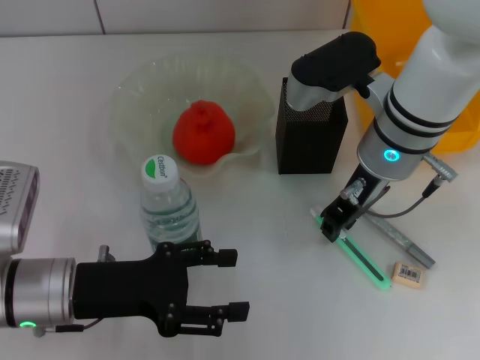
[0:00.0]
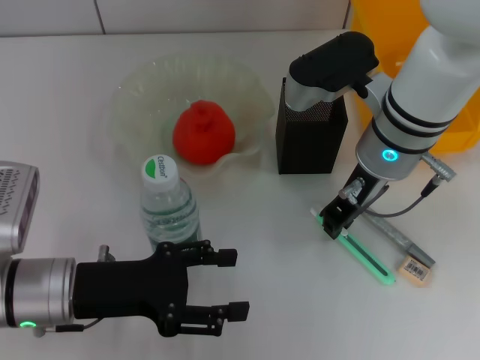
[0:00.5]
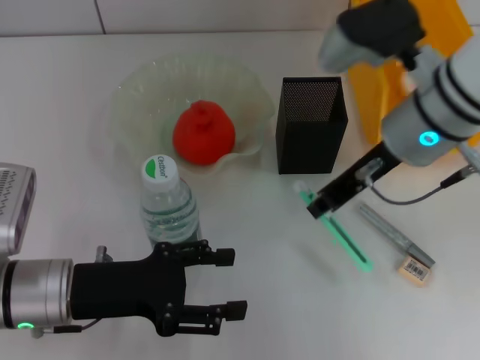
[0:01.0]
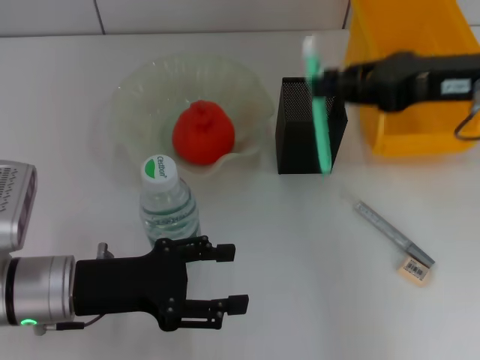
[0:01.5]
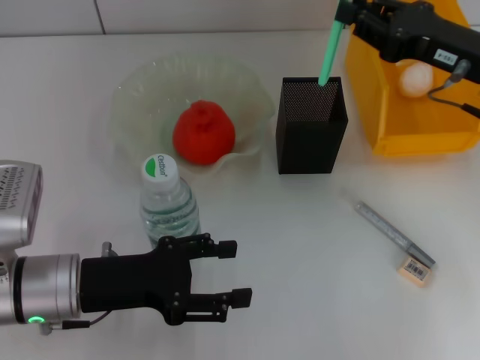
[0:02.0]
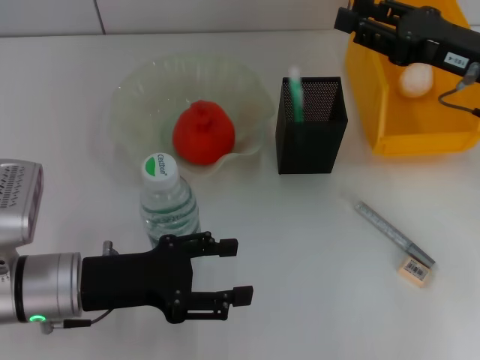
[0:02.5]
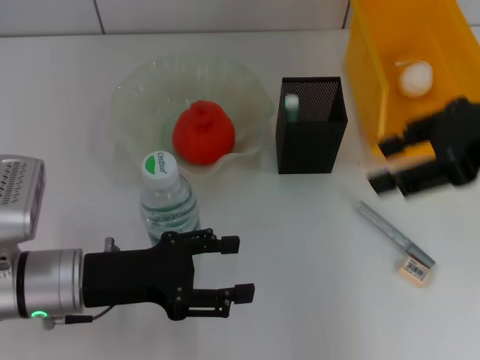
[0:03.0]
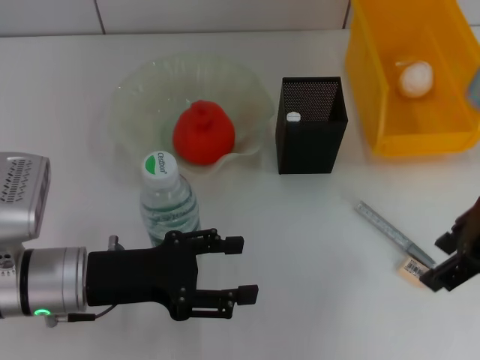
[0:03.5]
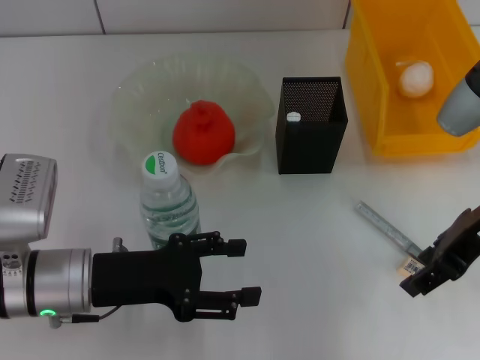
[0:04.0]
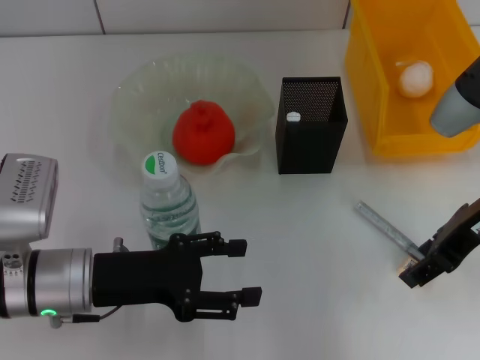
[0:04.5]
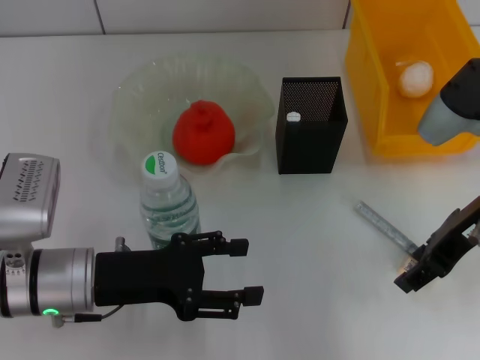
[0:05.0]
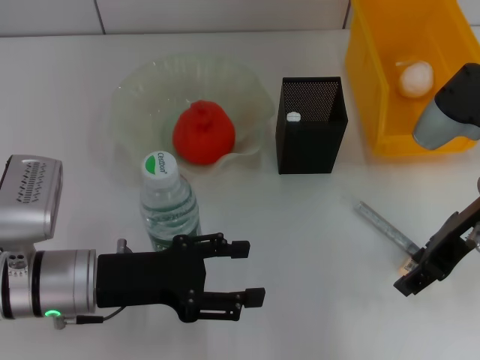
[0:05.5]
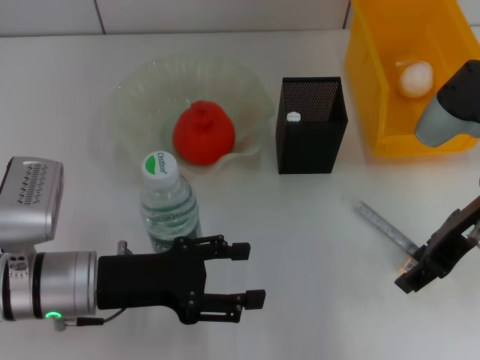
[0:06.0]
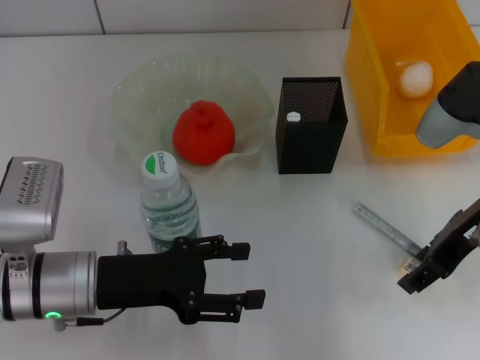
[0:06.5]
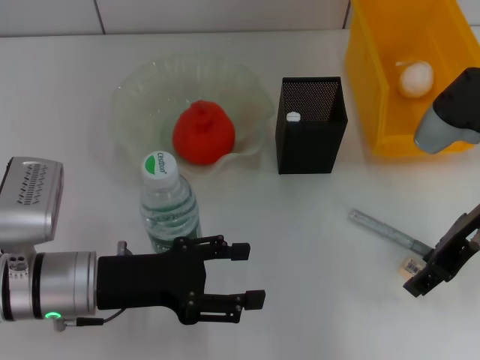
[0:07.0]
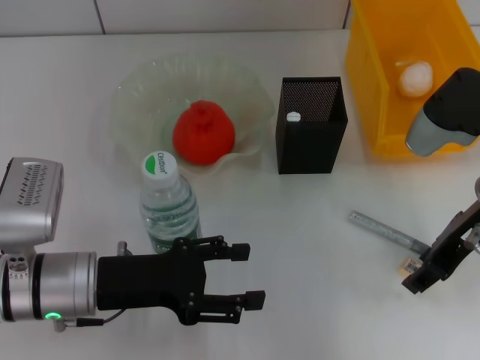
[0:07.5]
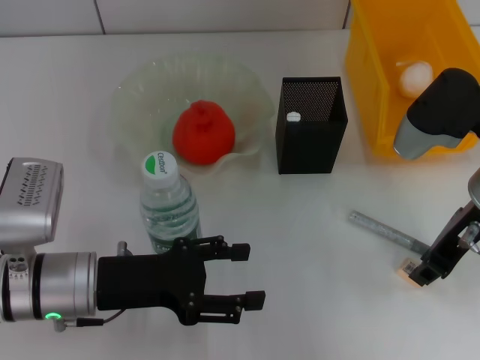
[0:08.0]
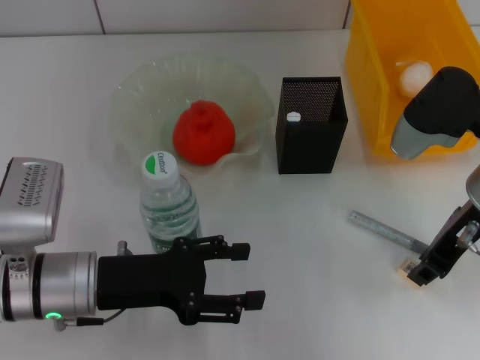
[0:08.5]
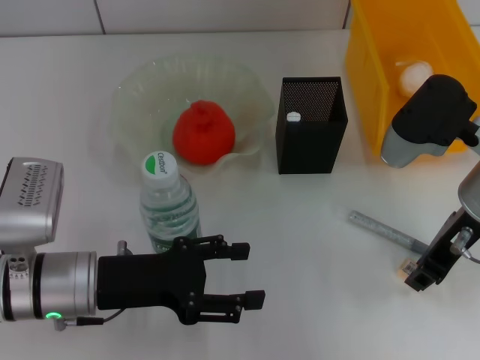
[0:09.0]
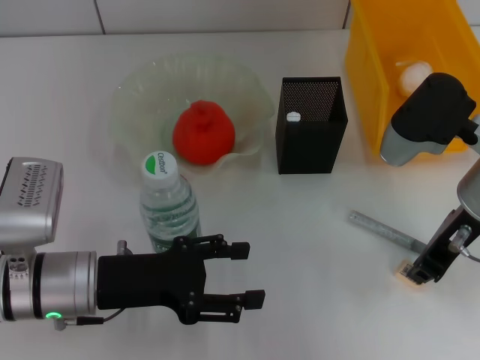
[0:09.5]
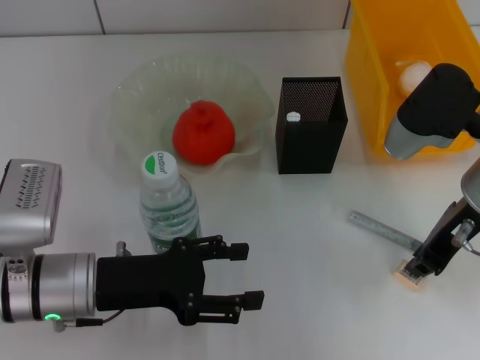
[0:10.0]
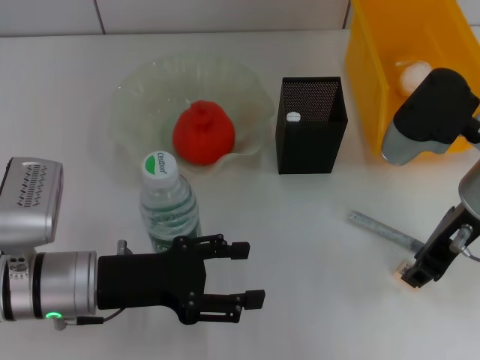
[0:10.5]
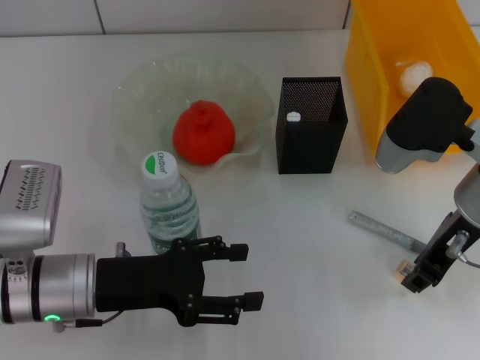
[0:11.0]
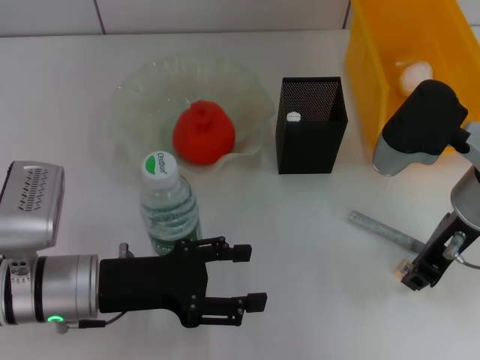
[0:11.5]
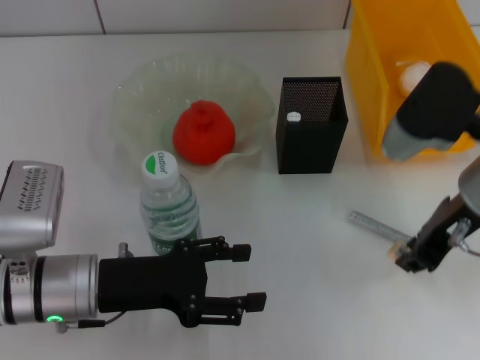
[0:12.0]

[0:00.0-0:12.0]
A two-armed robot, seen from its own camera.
Step, 0:01.0 to 0:02.5: Place the blue utility knife into the pen holder with the right hand.
Step, 0:03.0 to 0:11.5: Grab the eraser with the right hand.
0:00.0 to 0:02.0: The right gripper is displaced to the right by roughly 15 cm.
0:02.0 to 0:04.0: The right gripper moves backward, some 5 cm, moves roughly 10 cm upward and comes back, and opens its fingers.
0:04.0 to 0:06.0: The grippers make only small movements.
0:06.0 to 0:08.0: The right gripper closes up.
0:08.0 to 0:10.0: The right gripper closes.
0:10.0 to 0:12.0: The grippers stay close to where they were, moving slightly.

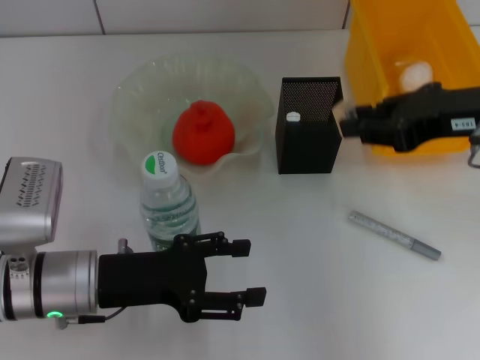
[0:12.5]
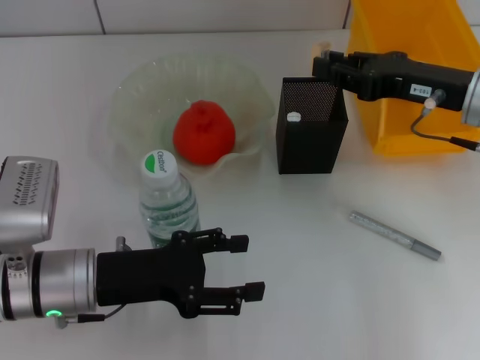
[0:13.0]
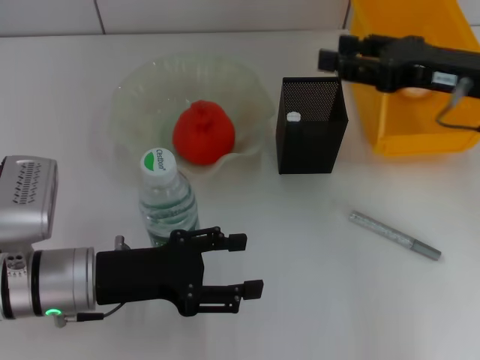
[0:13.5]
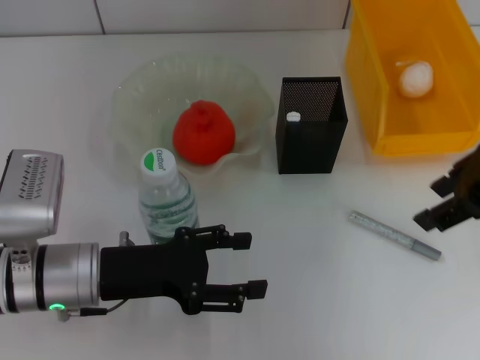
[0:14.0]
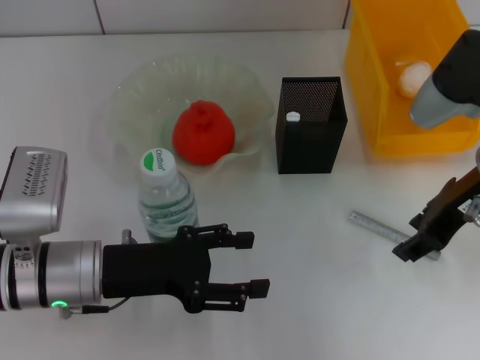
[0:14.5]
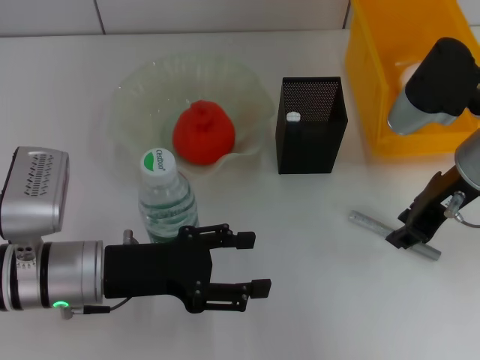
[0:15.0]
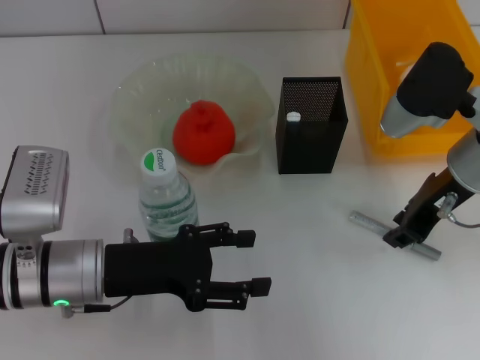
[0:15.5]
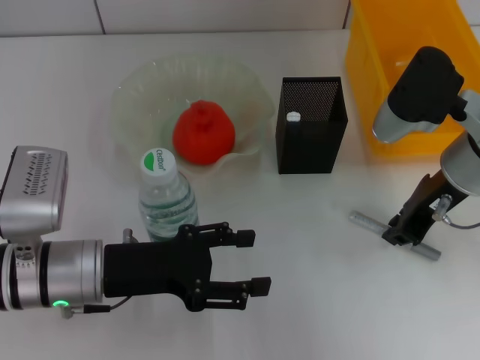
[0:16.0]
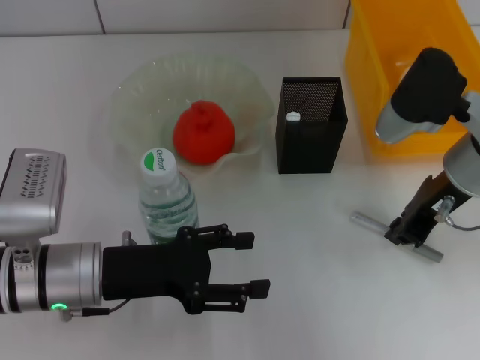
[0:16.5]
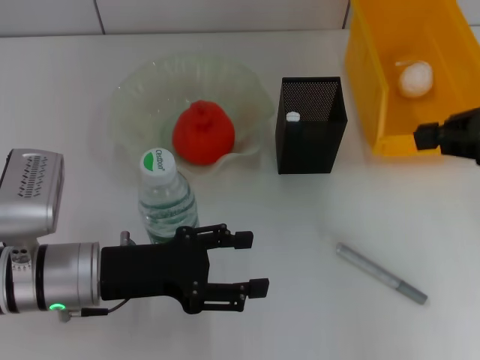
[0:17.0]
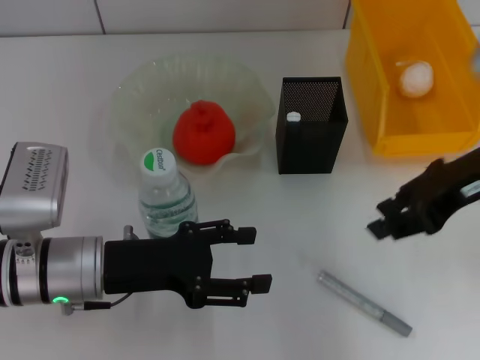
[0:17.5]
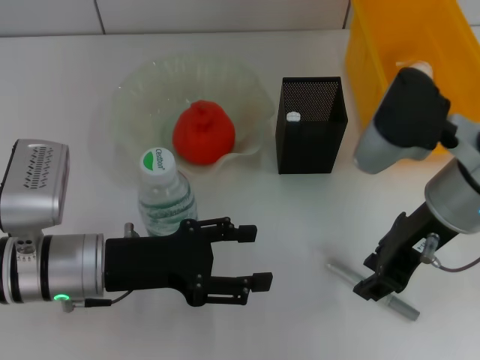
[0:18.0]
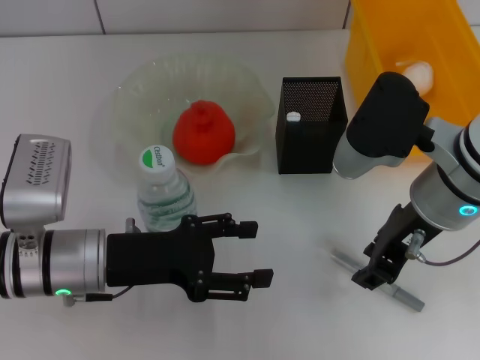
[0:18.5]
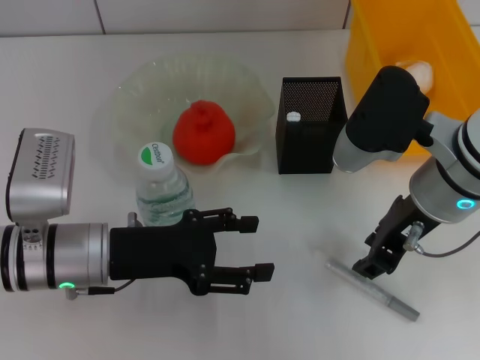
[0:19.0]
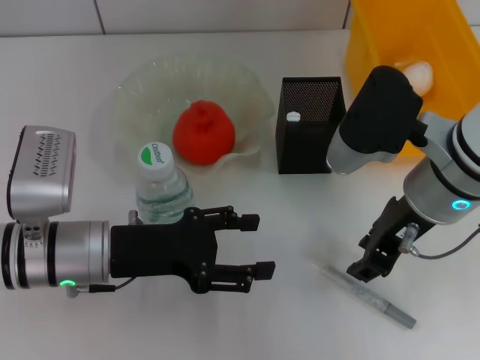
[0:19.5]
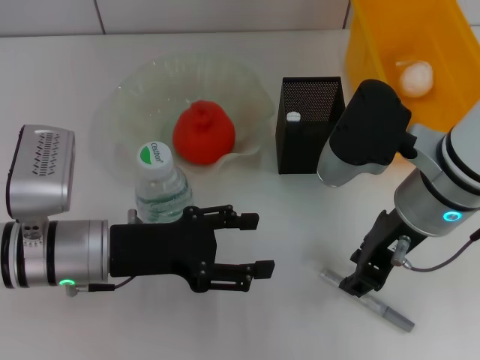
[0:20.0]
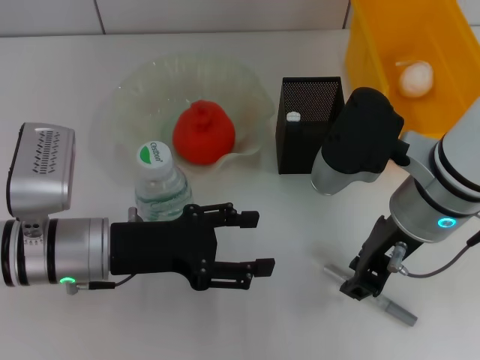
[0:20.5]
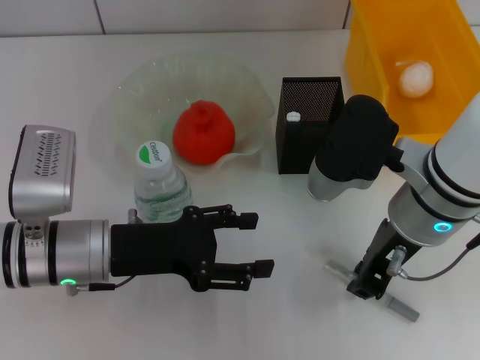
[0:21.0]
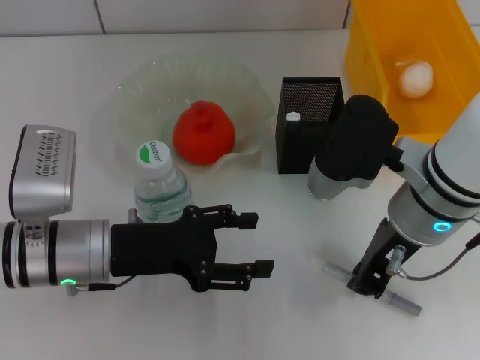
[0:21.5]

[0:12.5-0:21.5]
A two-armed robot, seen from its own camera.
0:12.5 to 0:14.5: The right gripper swings up and down, roughly 10 cm each way, with 2 reversals, and opens up.
0:14.5 to 0:17.0: The right gripper moves to the right, about 10 cm, and closes its fingers.
0:17.0 to 0:19.5: The right gripper goes about 15 cm to the left, and opens.
0:19.5 to 0:21.5: The grippers stay close to where they were, moving slightly.

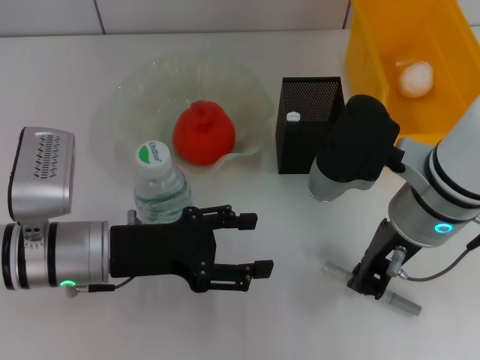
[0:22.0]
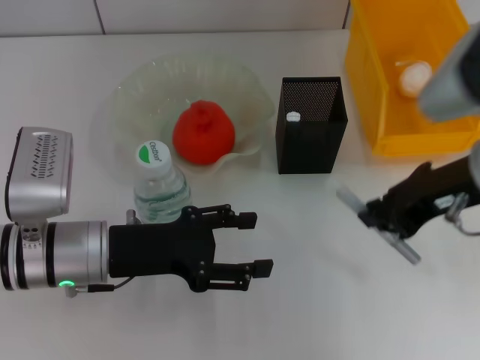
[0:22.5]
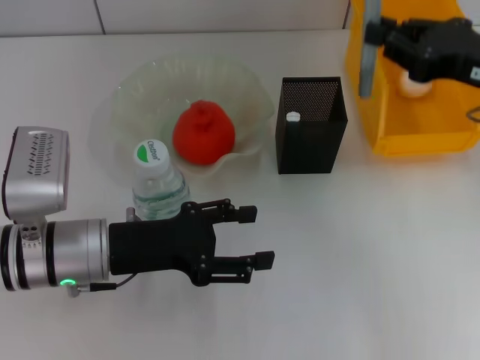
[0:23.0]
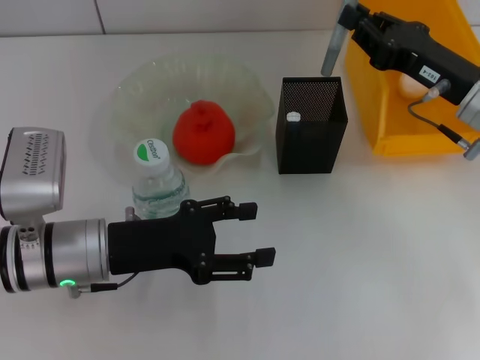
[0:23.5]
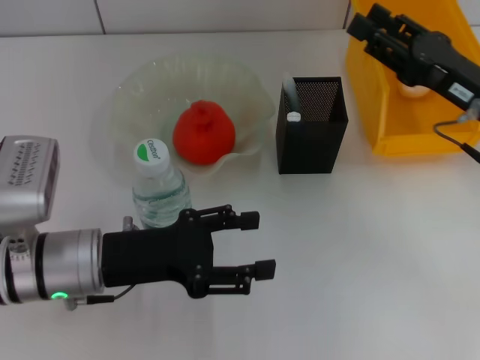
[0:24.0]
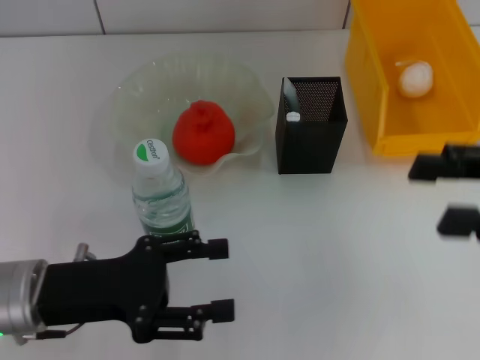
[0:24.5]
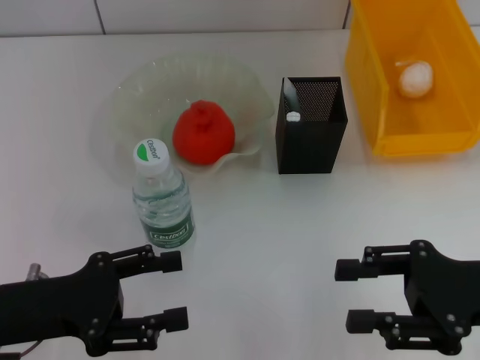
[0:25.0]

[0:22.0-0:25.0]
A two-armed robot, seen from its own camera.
Step, 0:22.0 to 0:23.5: Place the gray glue into the pen holder with the right hand.
0:22.0 to 0:23.5: The right gripper travels to the right and forward by roughly 10 cm.
0:23.5 to 0:25.0: The left gripper shifts roughly 10 cm to the left and backward. Meanwhile the right gripper travels backward by about 15 cm, and opens.
